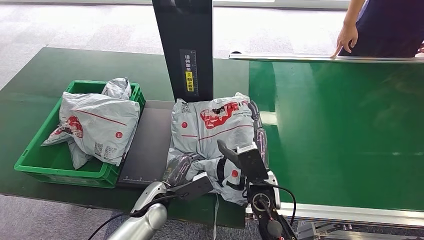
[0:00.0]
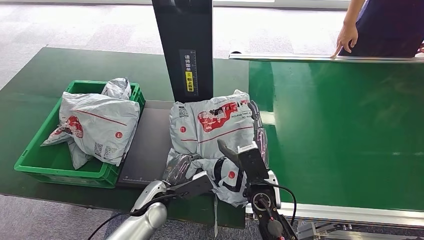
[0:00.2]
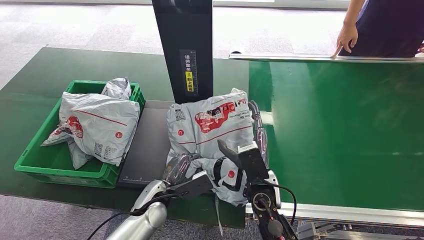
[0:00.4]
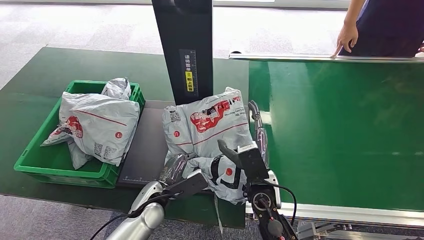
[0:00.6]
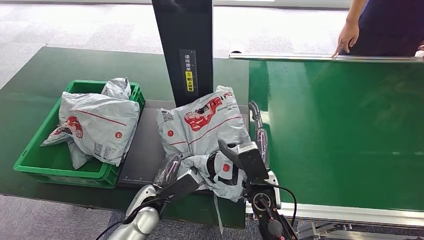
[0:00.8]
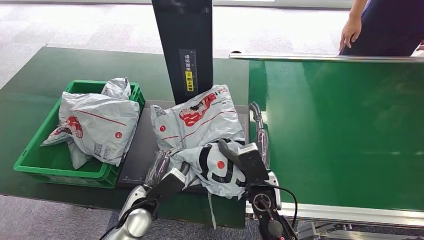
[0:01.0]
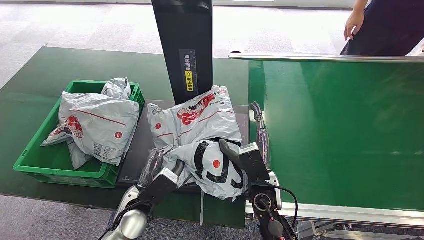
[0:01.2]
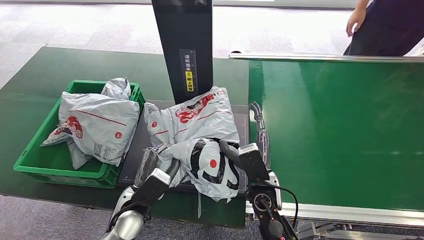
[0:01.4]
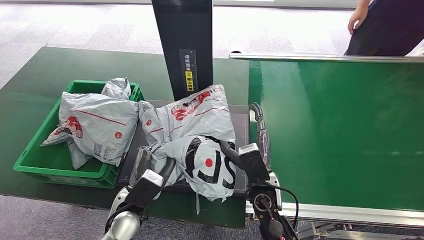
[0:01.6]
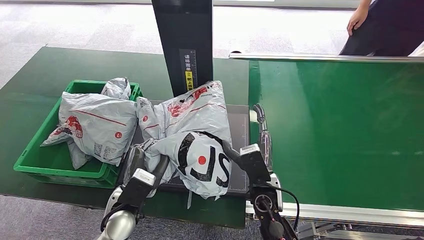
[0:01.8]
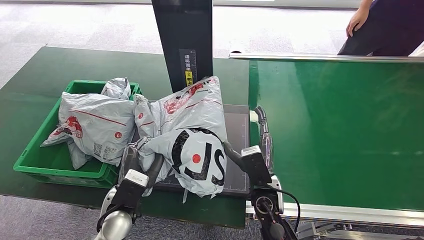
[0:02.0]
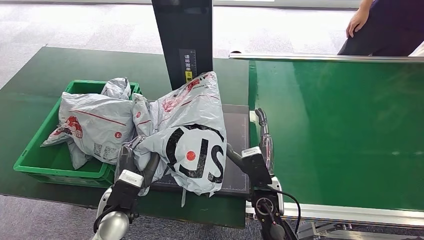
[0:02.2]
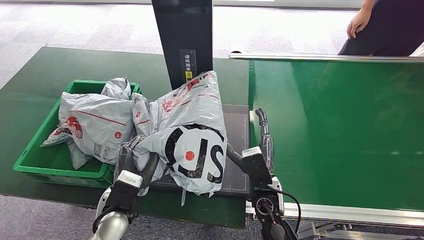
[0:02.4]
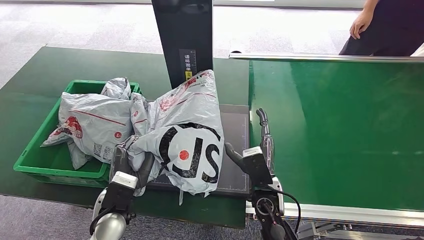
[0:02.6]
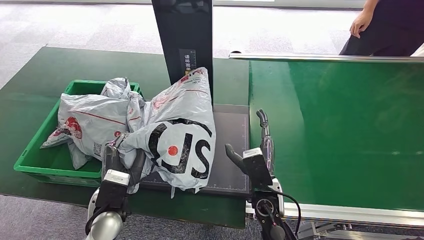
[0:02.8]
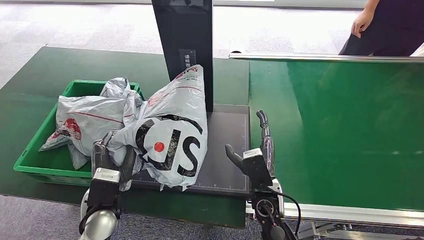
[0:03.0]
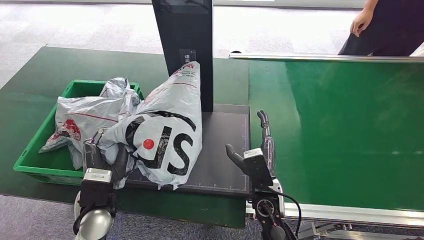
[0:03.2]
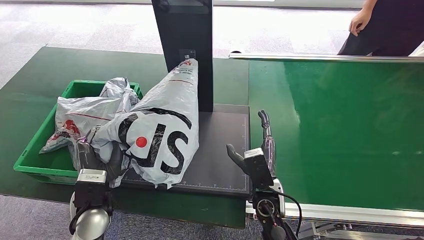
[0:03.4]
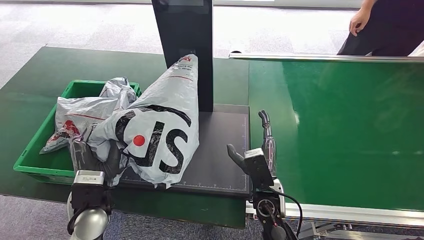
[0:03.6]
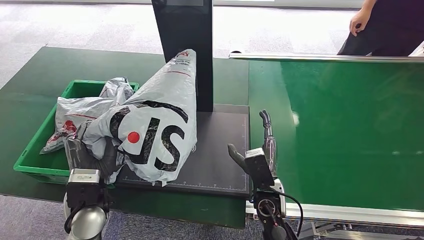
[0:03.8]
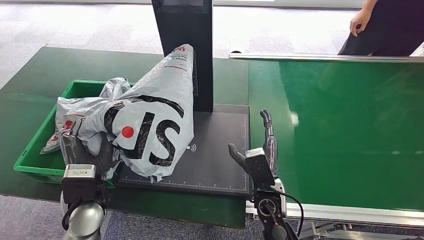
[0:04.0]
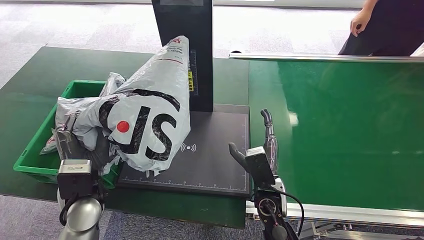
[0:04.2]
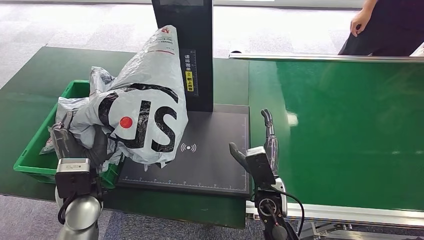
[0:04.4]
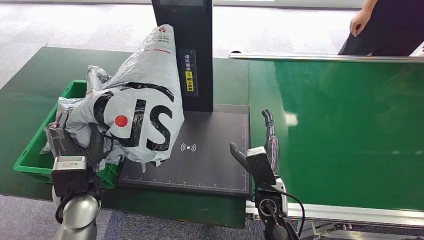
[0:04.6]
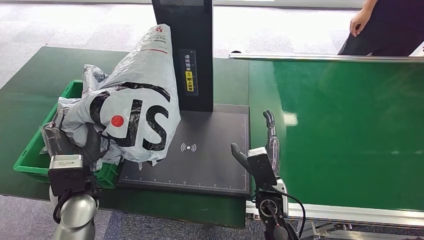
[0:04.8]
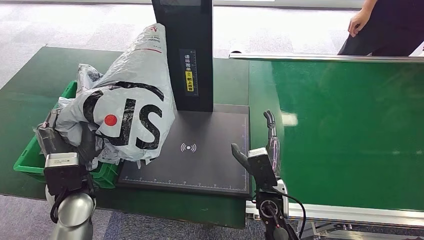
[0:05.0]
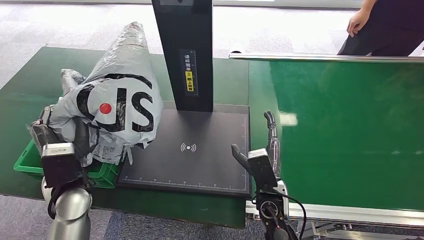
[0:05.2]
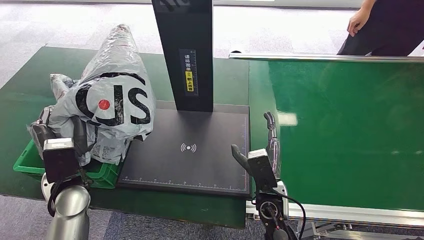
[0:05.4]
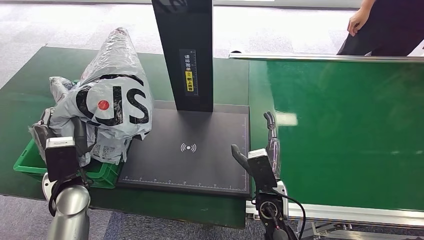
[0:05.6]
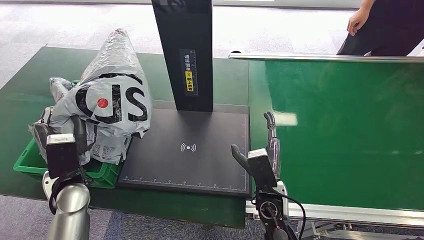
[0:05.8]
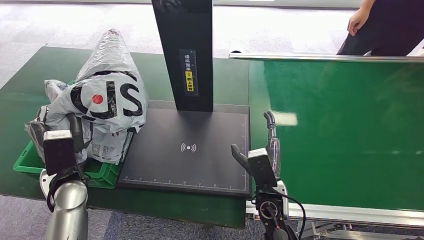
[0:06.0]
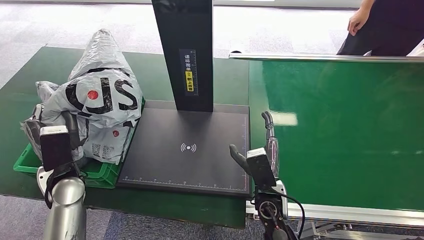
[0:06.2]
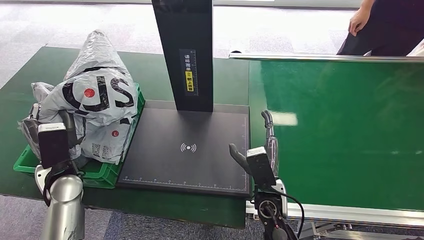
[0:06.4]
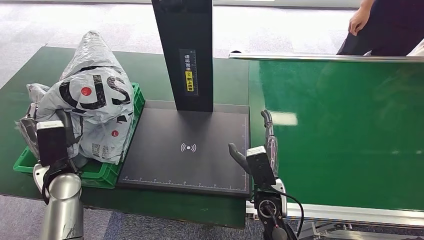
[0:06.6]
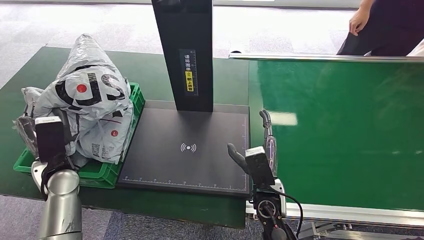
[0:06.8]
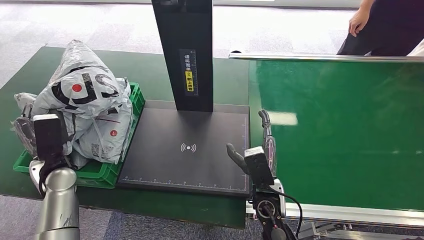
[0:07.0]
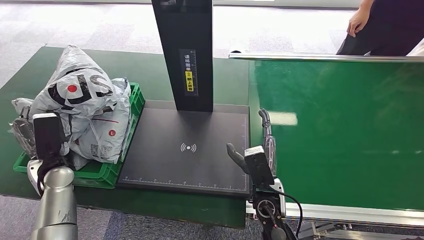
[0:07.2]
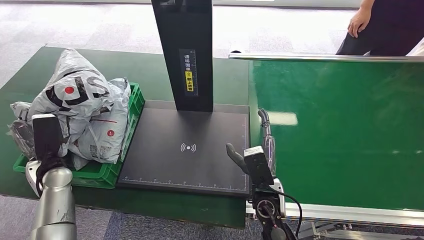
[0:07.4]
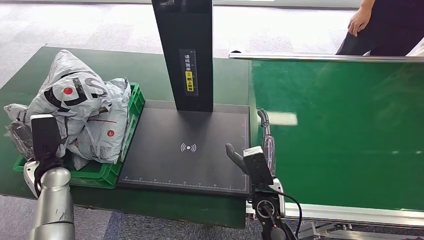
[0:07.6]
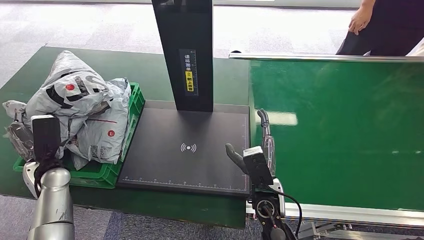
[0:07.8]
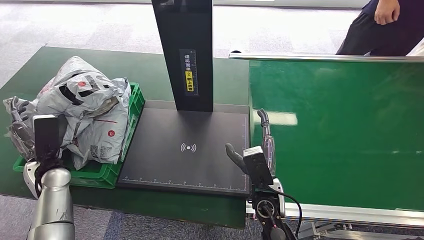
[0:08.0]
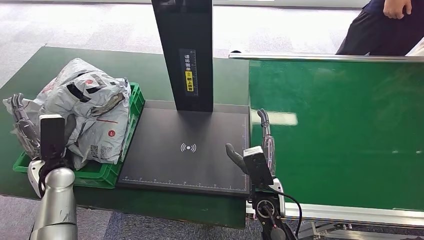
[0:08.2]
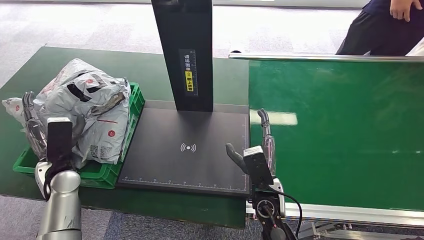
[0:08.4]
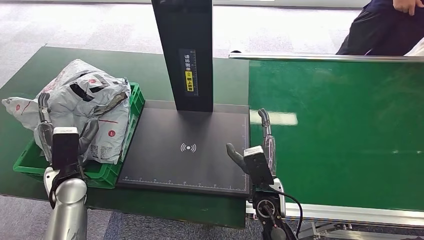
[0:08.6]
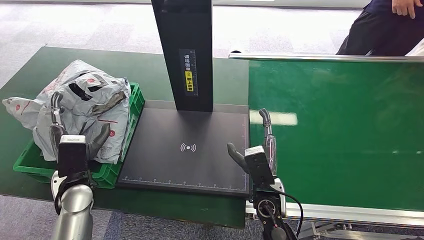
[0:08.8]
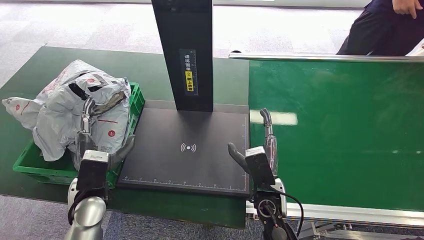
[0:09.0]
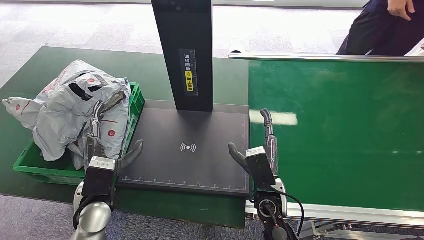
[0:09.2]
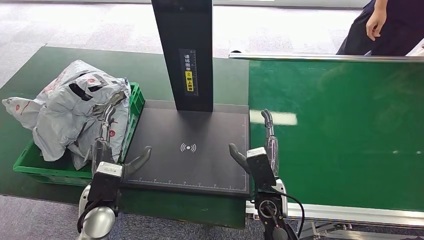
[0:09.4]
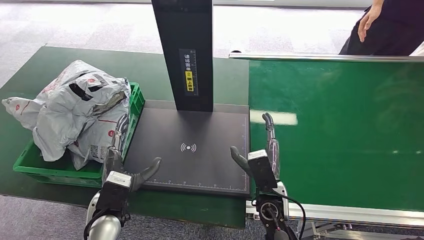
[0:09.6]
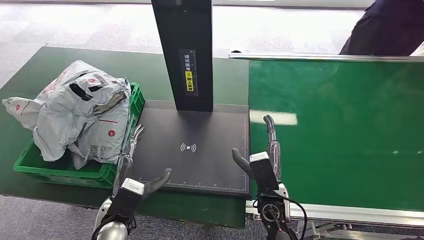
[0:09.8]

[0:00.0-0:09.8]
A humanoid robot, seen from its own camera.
Step, 0:00.0 to 0:03.0: Pick up the package from the inbound machine.
Step, 0:03.2 to 0:09.6: Place the package into the parcel locker.
0:00.0 to 0:01.4: The left hand ends up approximately 5 cm from where it was.
0:01.4 to 0:02.8: The hands move only a little.
0:02.8 to 0:04.2: The left hand goes about 5 cm upward.
0:04.2 to 0:05.6: The left hand moves roughly 5 cm.
0:05.6 to 0:07.0: The left hand goes roughly 5 cm to the left.
0:07.0 to 0:08.4: The hands stay close to where they were, moving slightly.
0:08.4 to 0:09.8: The left hand moves to the right and backward, roughly 20 cm.
